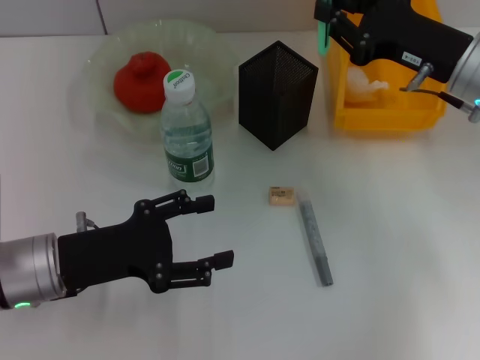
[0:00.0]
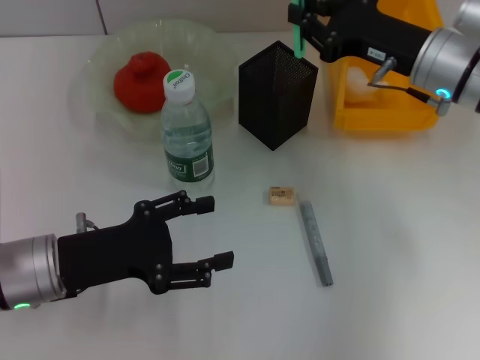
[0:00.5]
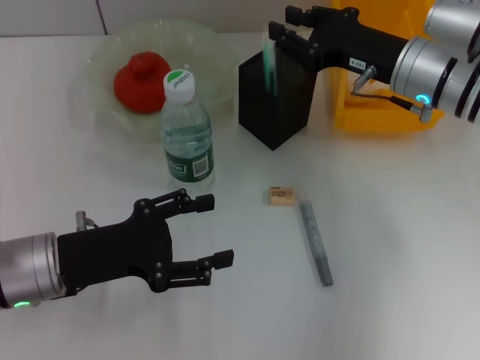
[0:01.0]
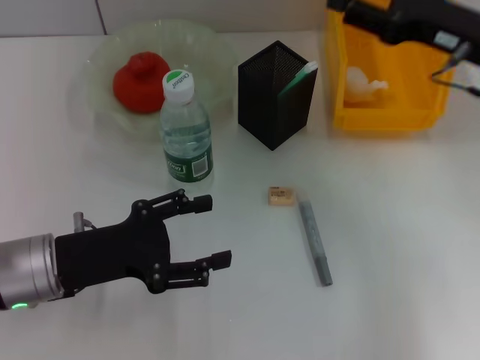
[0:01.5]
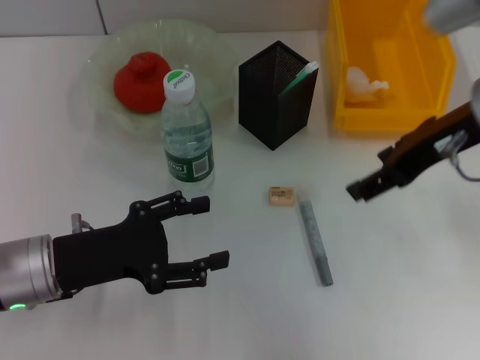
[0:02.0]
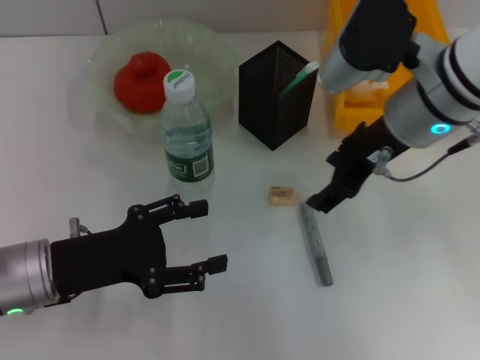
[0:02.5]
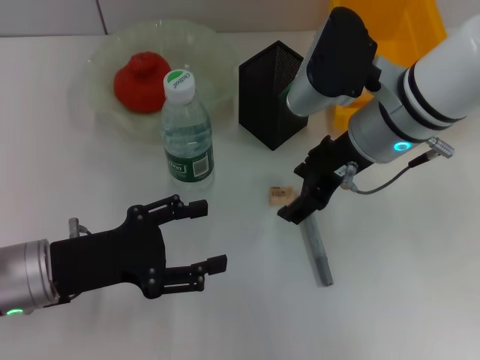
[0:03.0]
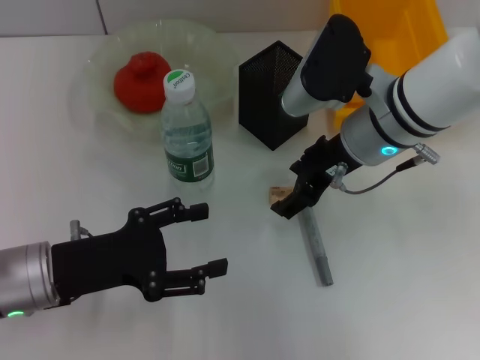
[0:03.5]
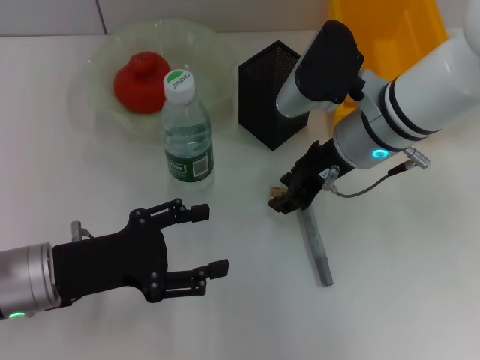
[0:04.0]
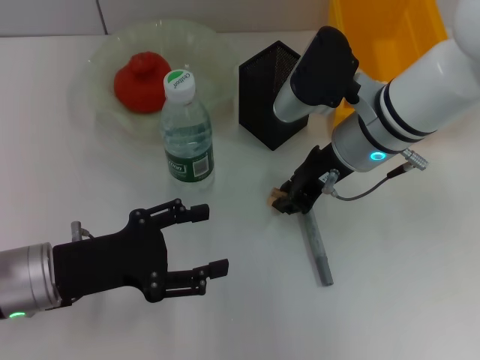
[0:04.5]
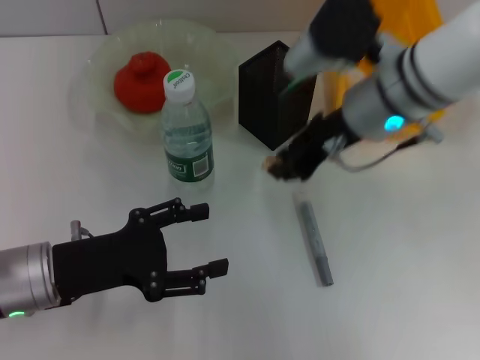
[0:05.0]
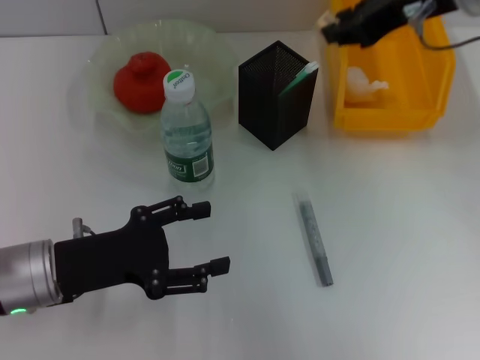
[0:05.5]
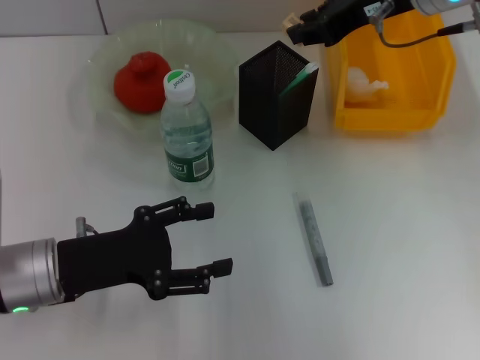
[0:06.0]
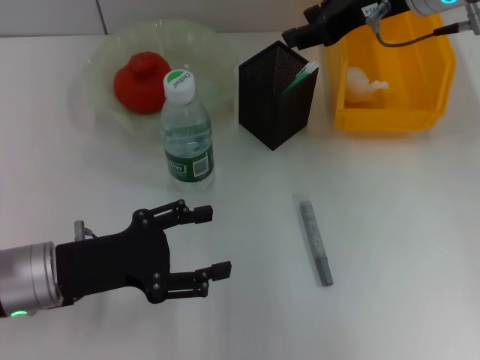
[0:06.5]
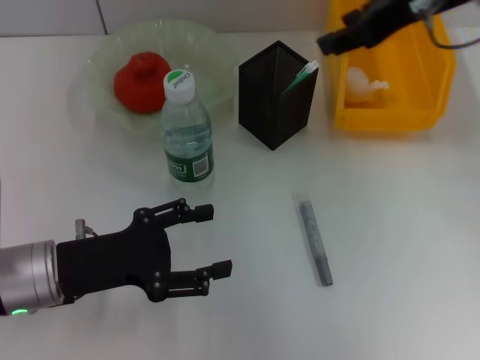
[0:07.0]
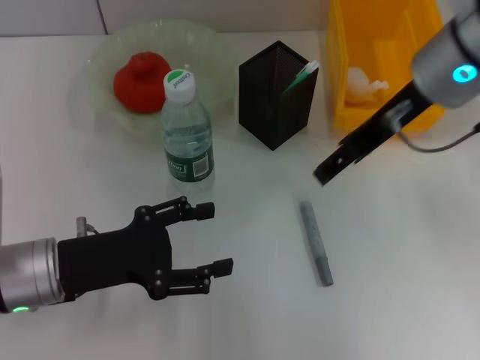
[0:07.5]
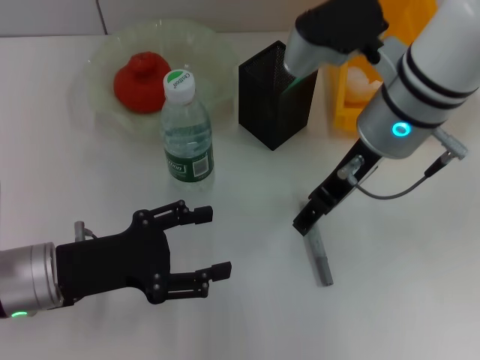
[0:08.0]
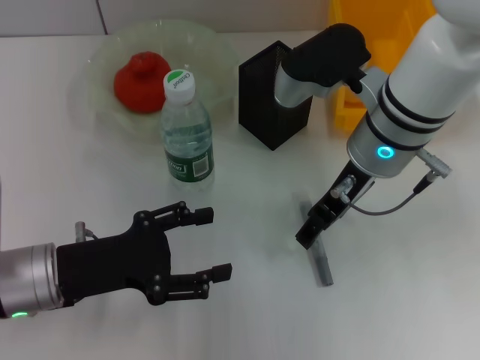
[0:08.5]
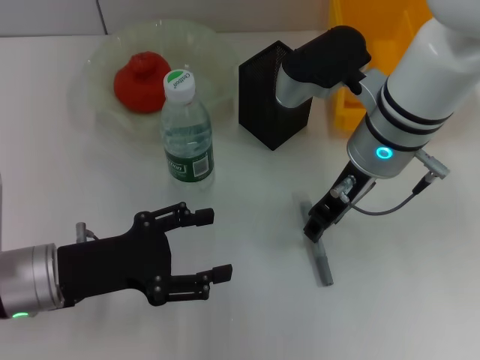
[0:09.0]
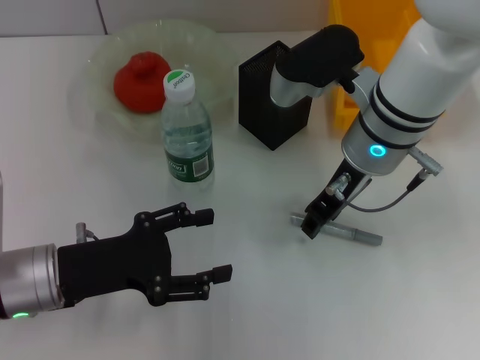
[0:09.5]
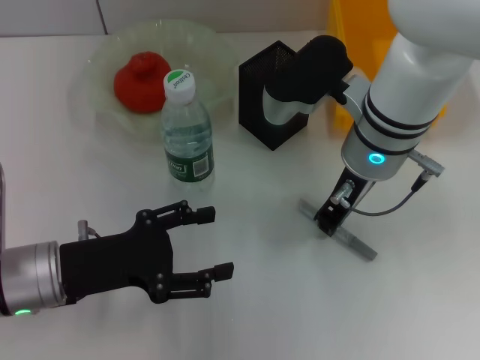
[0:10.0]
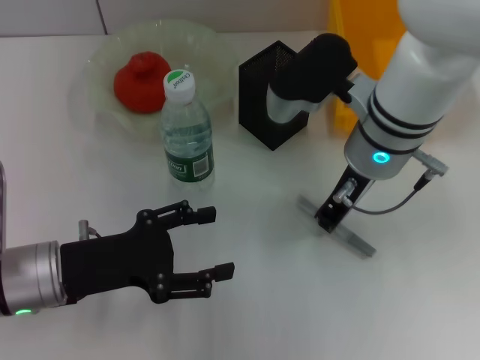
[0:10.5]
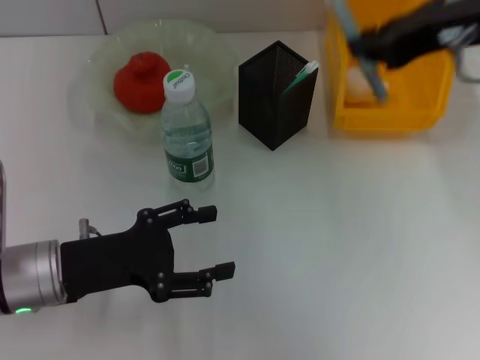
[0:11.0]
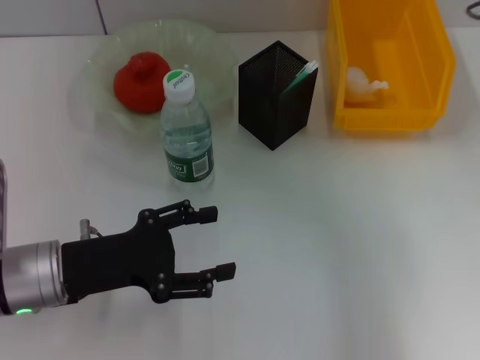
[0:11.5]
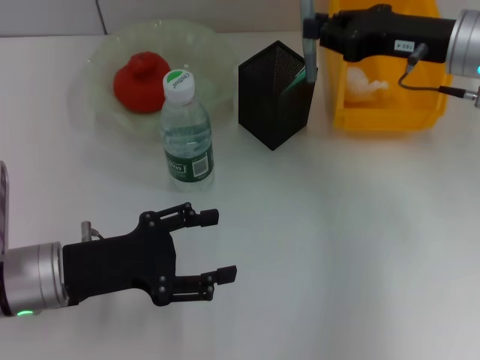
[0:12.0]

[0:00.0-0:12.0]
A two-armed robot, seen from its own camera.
Step, 0:01.5 to 0:04.5: Grab the eraser with the right hand.
Step, 0:05.0 to 0:06.0: Put the eraser into the pen holder with the right hand.
Step, 0:06.5 to 0:10.0: Grab the gray glue with the right hand.
0:00.0 to 0:02.0: The right gripper moves upward, about 10 cm, and opens its fingers.
0:02.0 to 0:04.0: The right gripper moves downward and to the left, roughly 10 cm, and closes up.
0:04.0 to 0:06.0: The right gripper is displaced upward, forward and to the right by about 15 cm, and closes up.
0:06.0 to 0:08.0: The right gripper moves backward, downward and to the left, some 10 cm, and opens up.
0:08.0 to 0:10.0: The right gripper closes its fingers.
0:10.0 to 0:12.0: The right gripper moves to the right, roughly 15 cm.

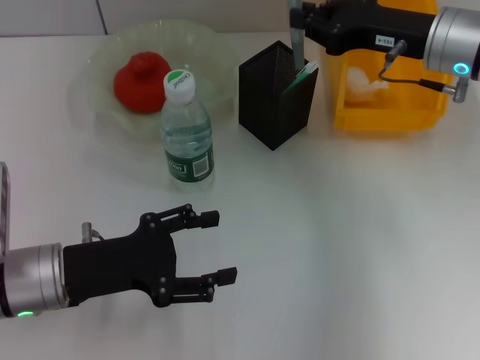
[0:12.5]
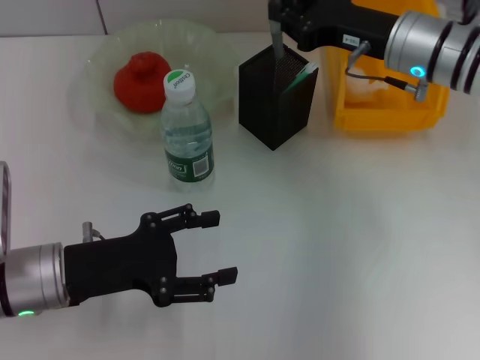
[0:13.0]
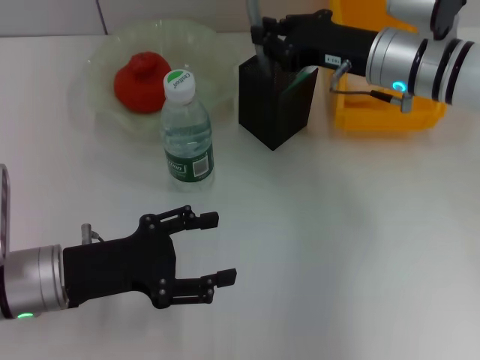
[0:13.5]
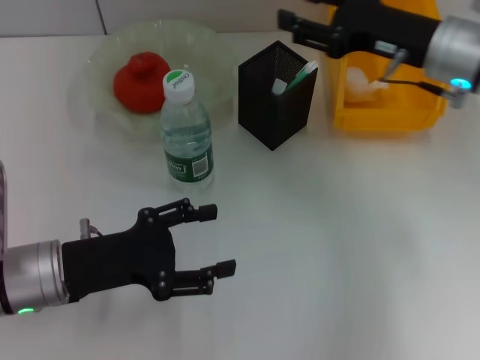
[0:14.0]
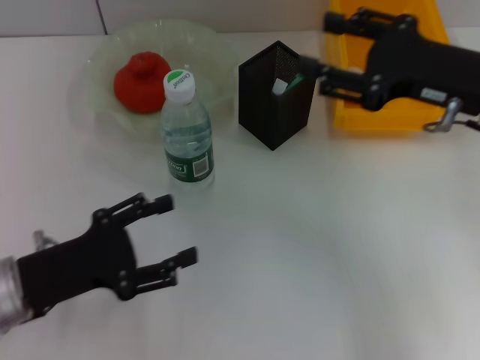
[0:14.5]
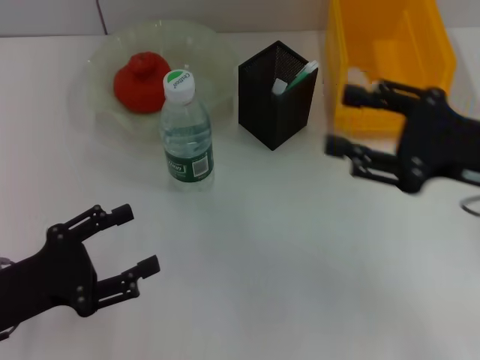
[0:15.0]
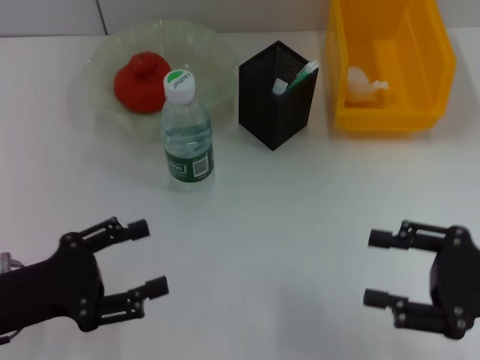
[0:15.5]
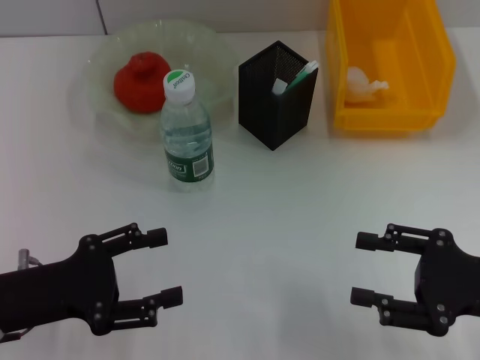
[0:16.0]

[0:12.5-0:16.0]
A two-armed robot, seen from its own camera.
0:12.5 to 0:14.5: The right gripper moves backward, about 10 cm, and opens.
0:14.5 to 0:16.0: The right gripper shifts some 15 cm backward, downward and to the right.

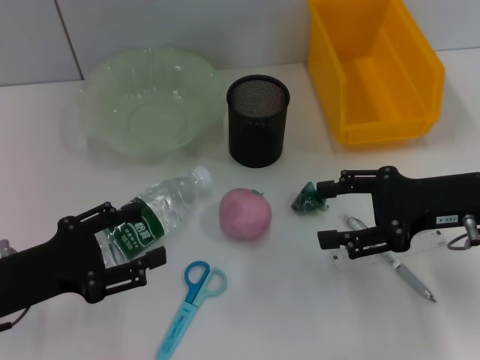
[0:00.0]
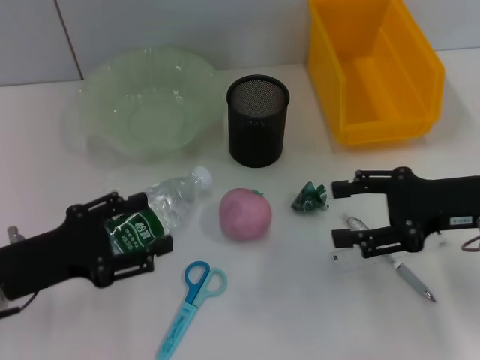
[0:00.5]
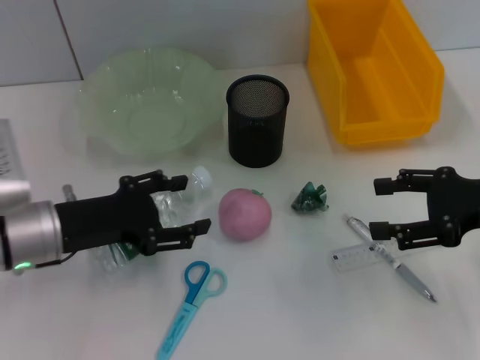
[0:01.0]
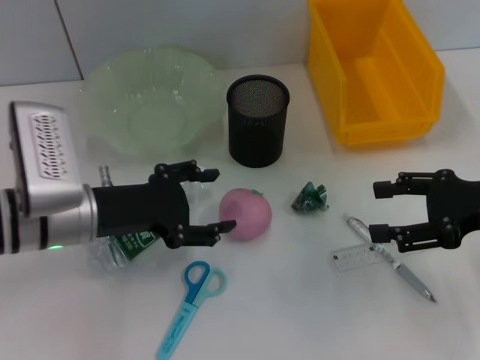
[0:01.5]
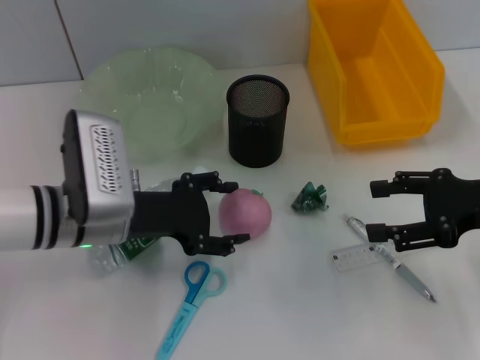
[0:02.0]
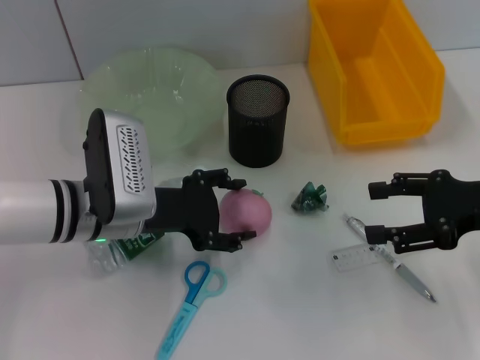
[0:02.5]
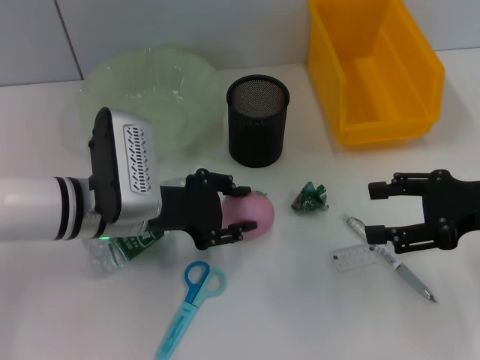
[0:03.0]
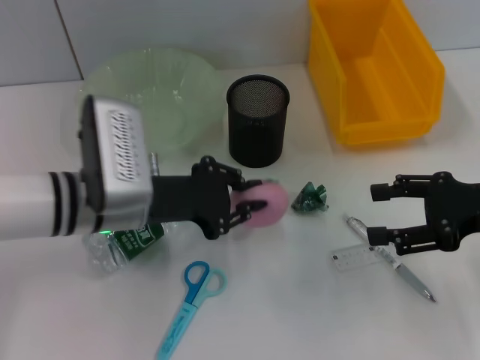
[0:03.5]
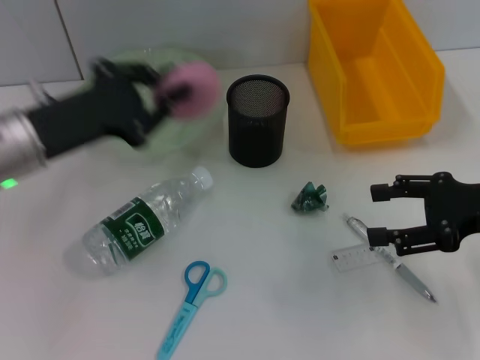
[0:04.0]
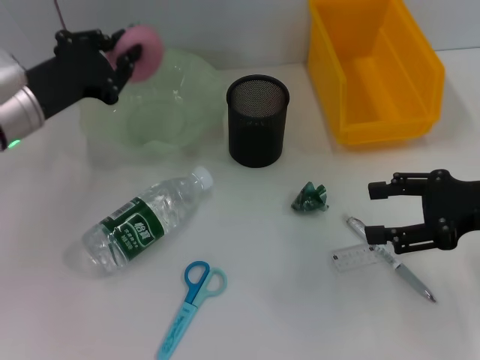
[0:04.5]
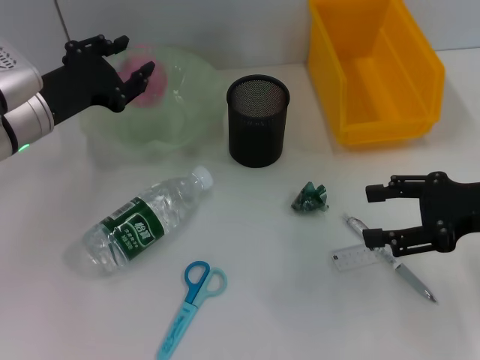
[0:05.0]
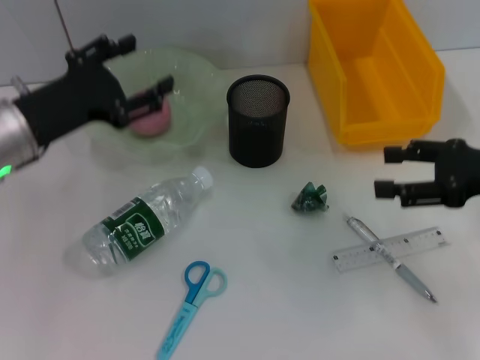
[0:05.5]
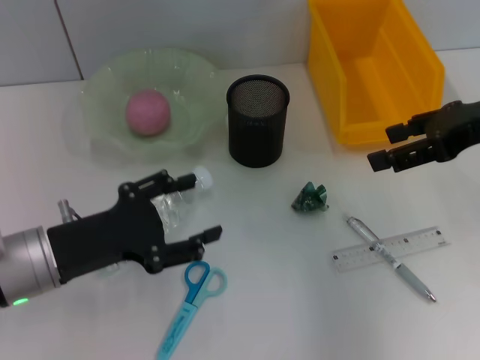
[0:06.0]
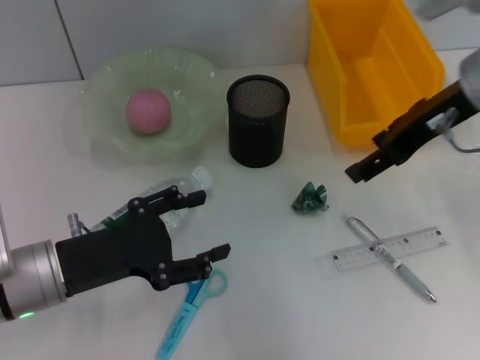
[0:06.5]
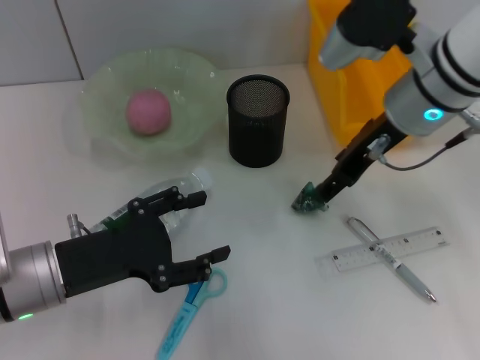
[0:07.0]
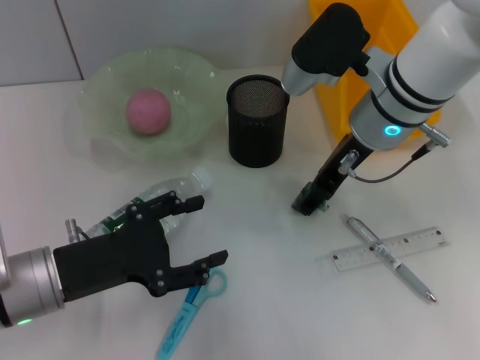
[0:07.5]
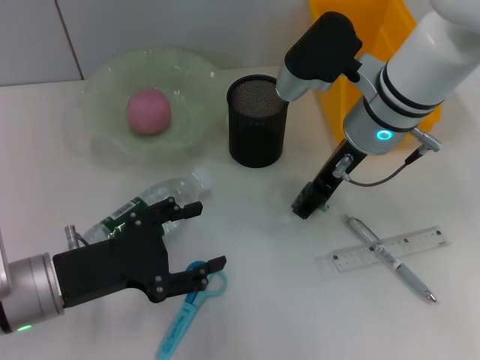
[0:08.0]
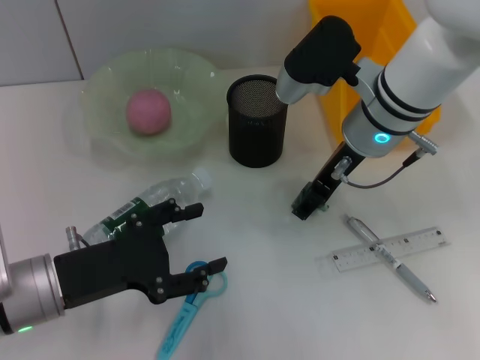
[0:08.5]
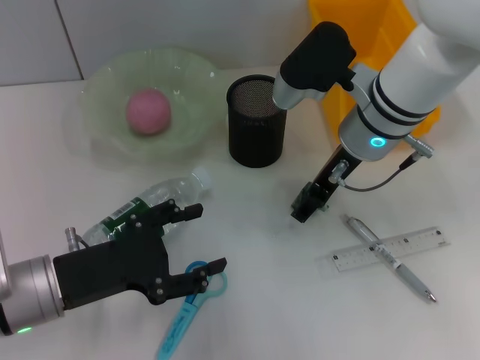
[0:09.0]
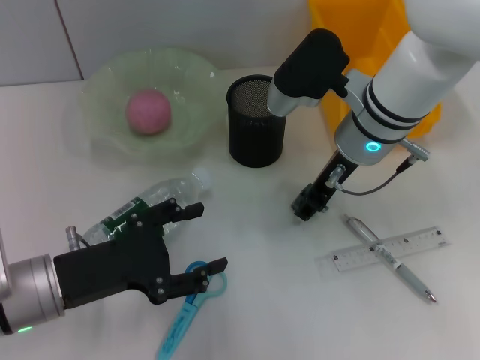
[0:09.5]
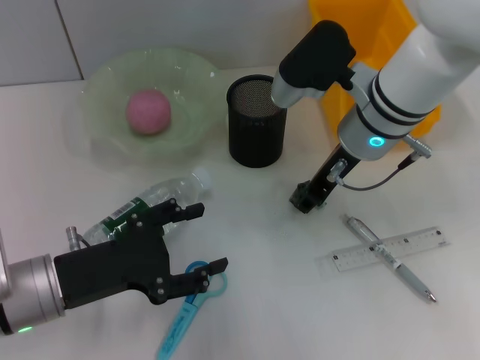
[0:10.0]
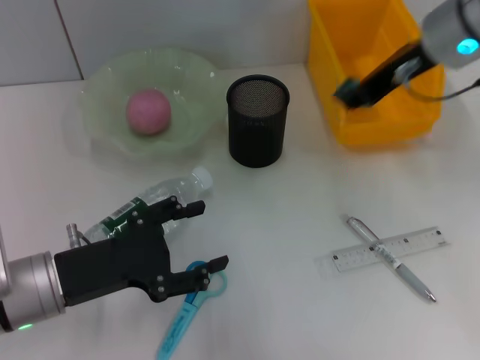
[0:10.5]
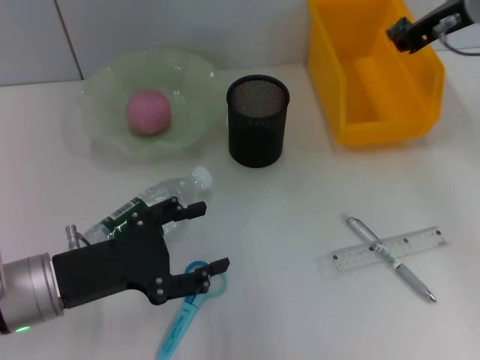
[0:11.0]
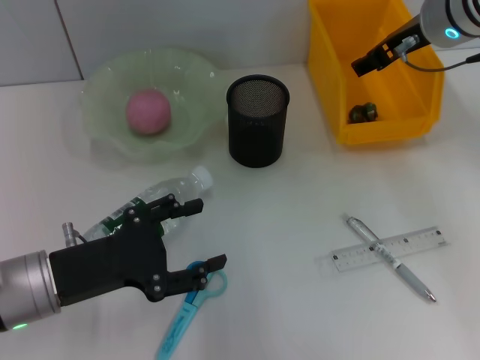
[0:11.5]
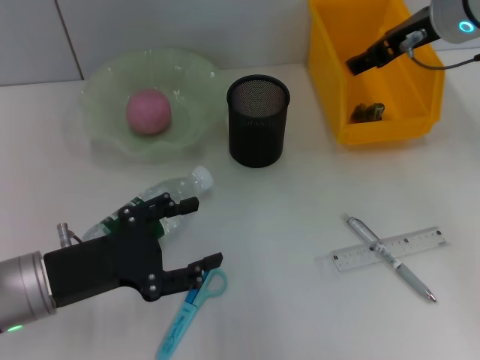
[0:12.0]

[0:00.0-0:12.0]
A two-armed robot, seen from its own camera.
Step, 0:00.0 to 0:03.0: Grab the peach with the left hand.
Step, 0:03.5 to 0:05.0: Place the peach into the fruit bowl with the left hand.
Step, 0:05.5 to 0:09.5: Grab the plastic with the right hand.
Step, 0:10.0 to 0:11.5: Place the plastic into the trash can with the right hand.
0:00.0 to 0:02.0: The left gripper moves to the right and forward, some 15 cm.
0:02.0 to 0:04.0: The left gripper travels upward and to the left by about 10 cm, and closes its fingers.
0:04.0 to 0:06.0: The left gripper is displaced backward and downward by about 10 cm, and opens up. Meanwhile the right gripper shifts some 10 cm upward and forward.
0:06.0 to 0:08.0: The right gripper moves to the left, roughly 15 cm.
0:08.0 to 0:10.0: The right gripper closes its fingers.
0:10.0 to 0:12.0: The right gripper goes some 10 cm upward and to the right, and opens its fingers.
